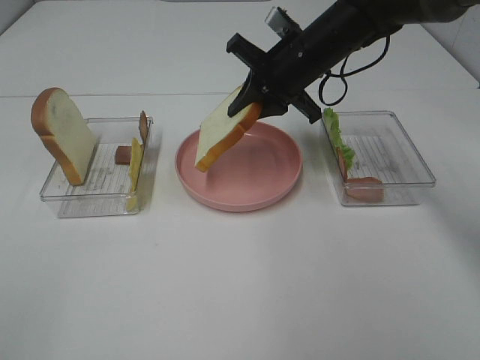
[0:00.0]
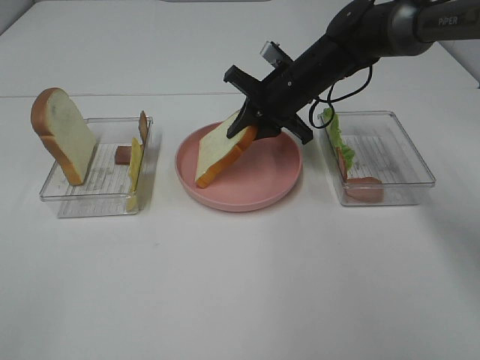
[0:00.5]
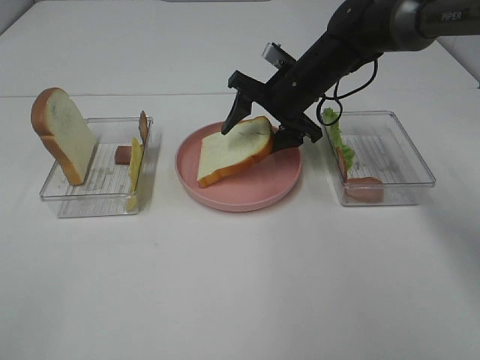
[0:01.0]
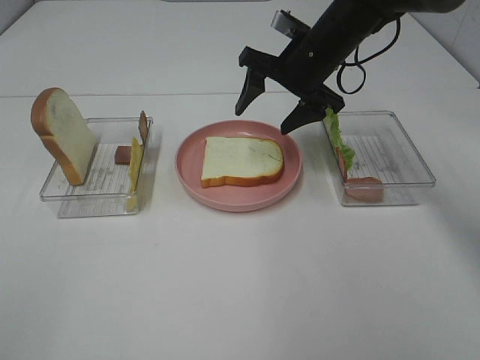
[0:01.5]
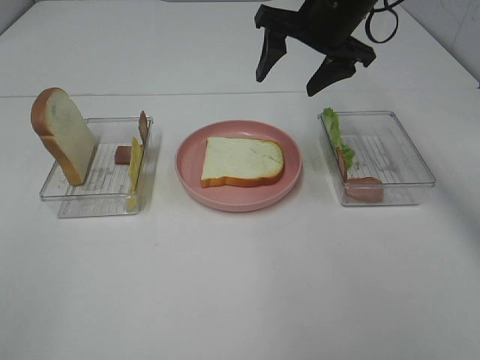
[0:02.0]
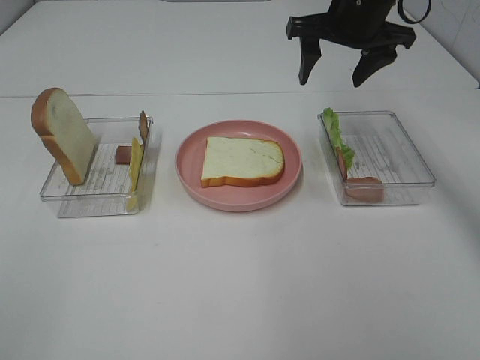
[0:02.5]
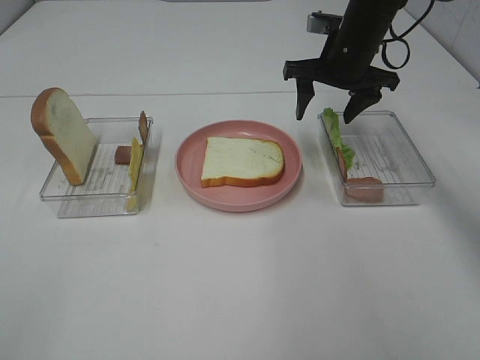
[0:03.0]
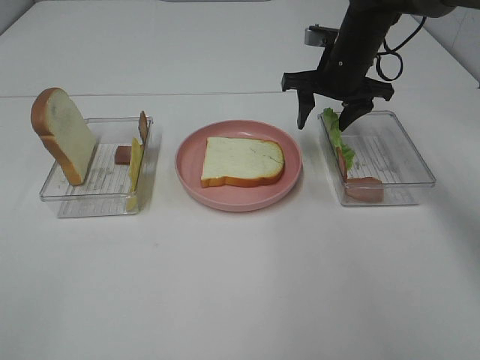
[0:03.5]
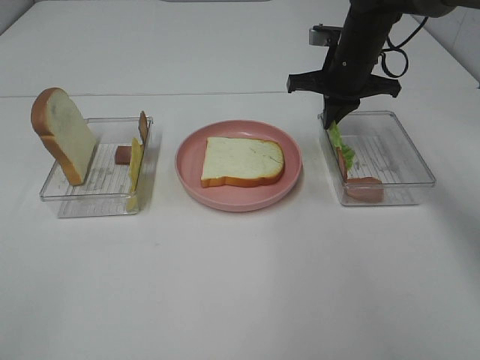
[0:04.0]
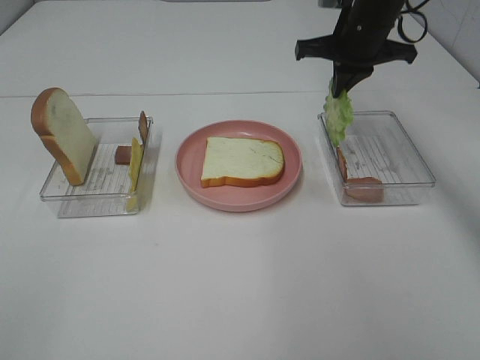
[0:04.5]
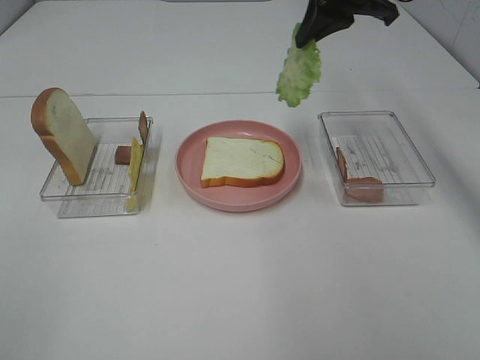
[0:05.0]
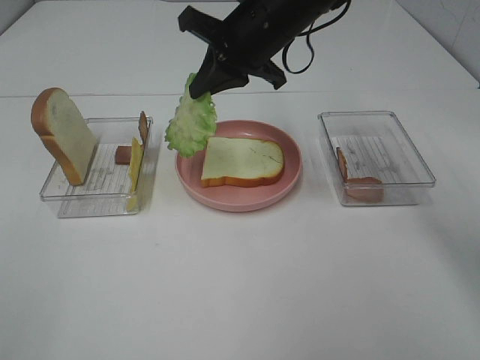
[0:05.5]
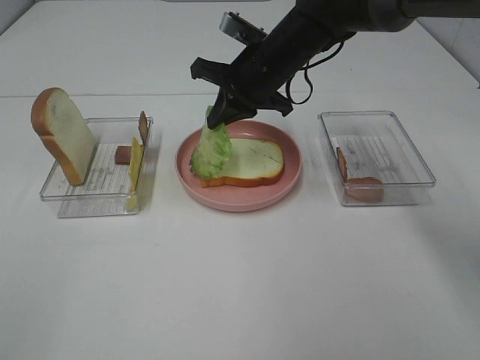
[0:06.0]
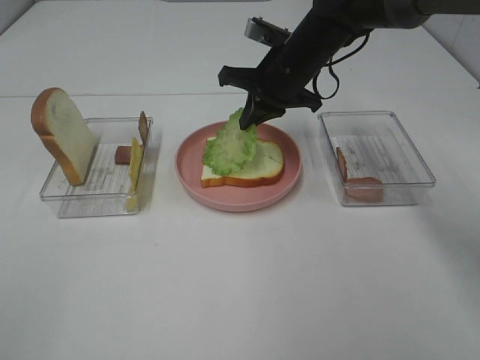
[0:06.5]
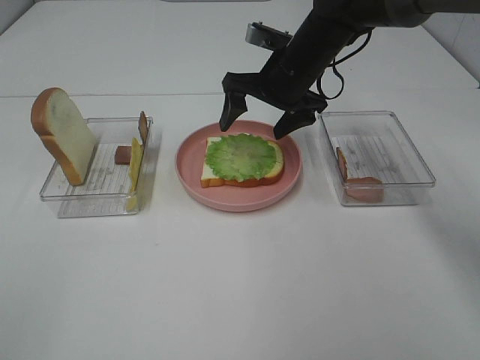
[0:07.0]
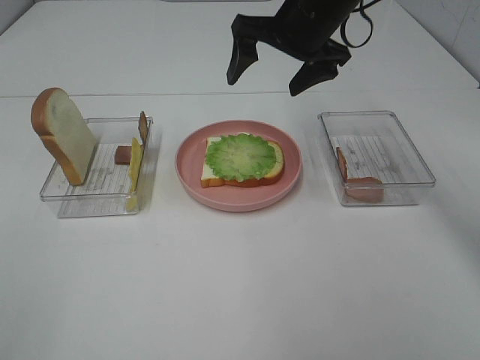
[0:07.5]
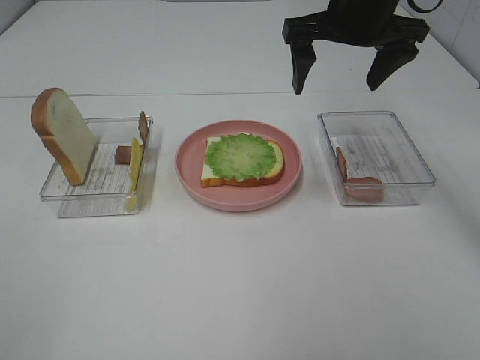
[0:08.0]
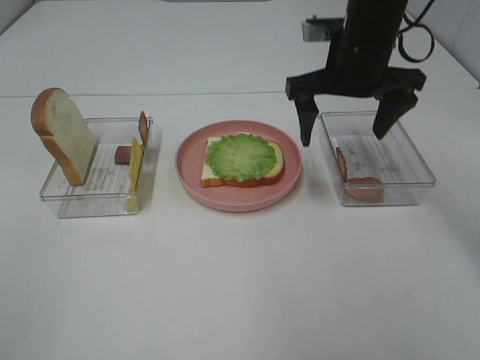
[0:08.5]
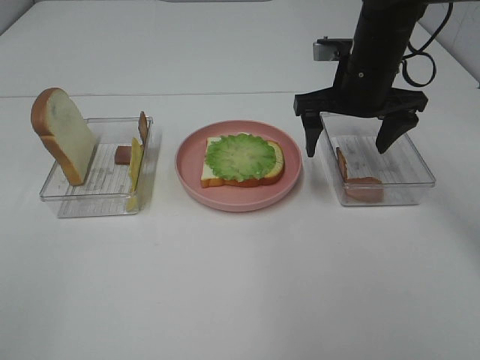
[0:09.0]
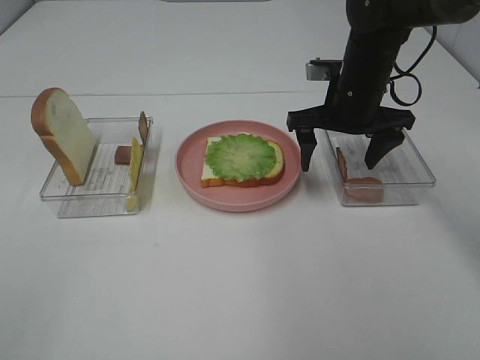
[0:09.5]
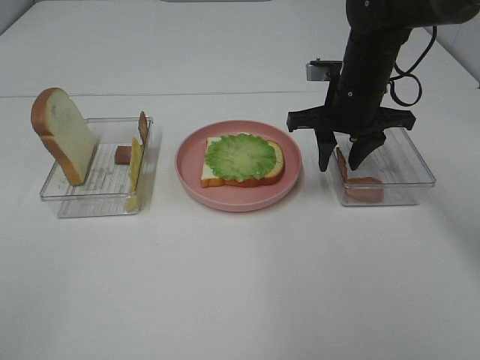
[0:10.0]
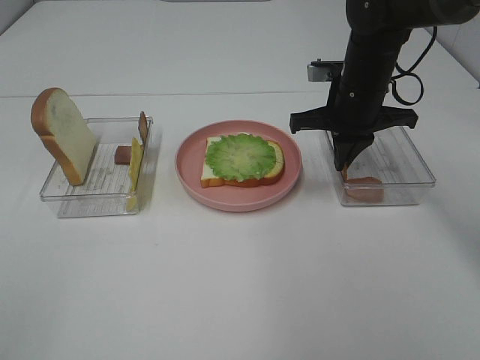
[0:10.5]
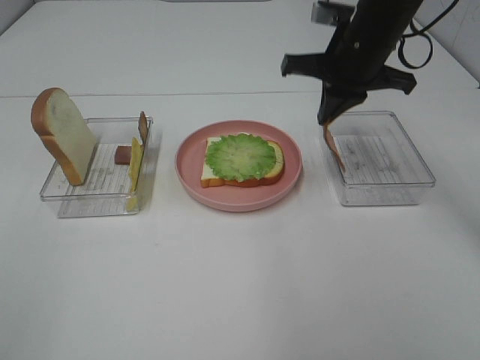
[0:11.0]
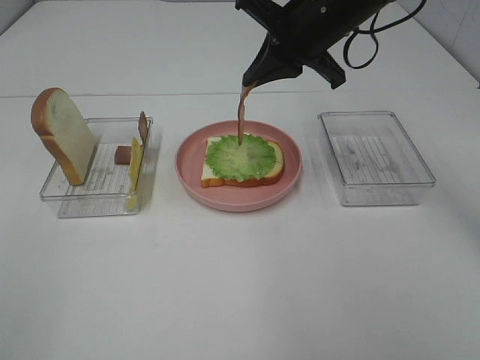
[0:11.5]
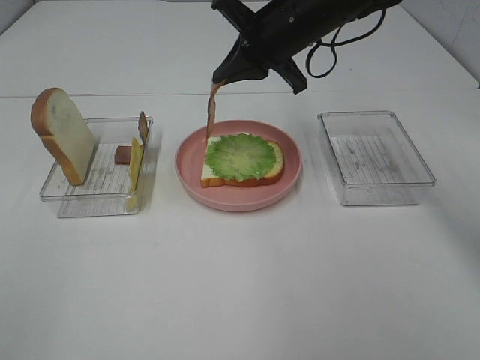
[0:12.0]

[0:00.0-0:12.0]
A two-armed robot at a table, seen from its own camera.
Task of the whole recording: Make sandwiches.
Step, 0:02.0 to 0:04.0: Right hand:grab the lettuce slice.
Step, 0:04.5 to 0:07.0: Right hand:place the lettuce slice on the bread slice.
Step, 0:07.5 to 0:10.0: Right hand:grab the bacon.
0:00.0 to 0:02.0: The right gripper shifts about 10 cm upward, and opens up.
0:02.0 to 0:04.0: The right gripper is displaced downward by approximately 10 cm, and closes its fingers.
0:04.0 to 0:06.0: The right gripper travels to the left by roughly 10 cm, and reaches approximately 15 cm upward, then returns.
0:06.0 to 0:08.0: The right gripper heads upward and to the right, covering some 15 cm, and opens its fingers.
0:08.0 to 0:10.0: The right gripper goes approximately 10 cm downward, and closes its fingers.
0:10.0 to 0:12.0: The right gripper shifts about 10 cm to the left and upward, and closes up.

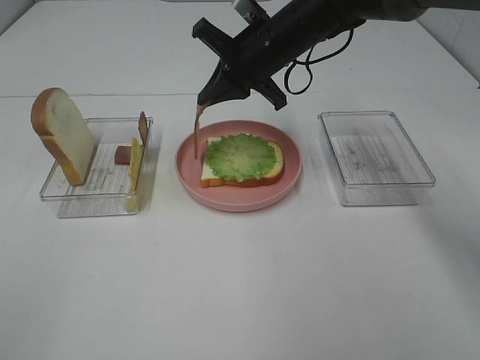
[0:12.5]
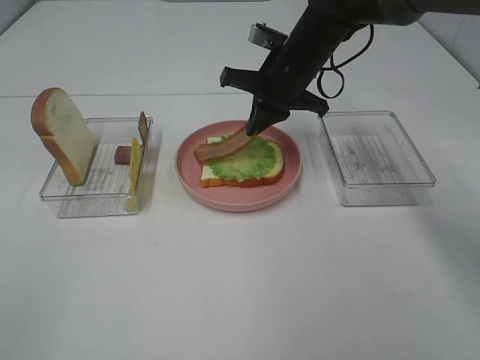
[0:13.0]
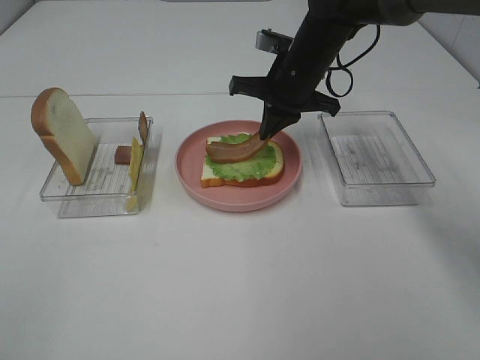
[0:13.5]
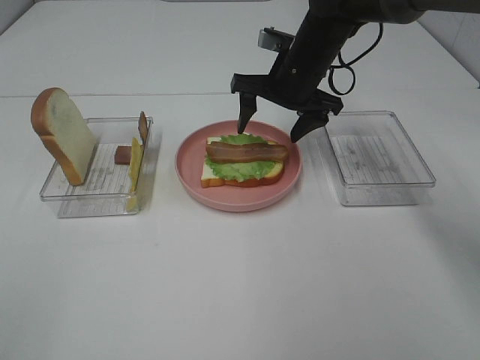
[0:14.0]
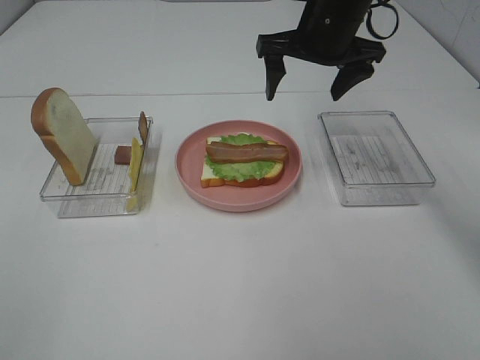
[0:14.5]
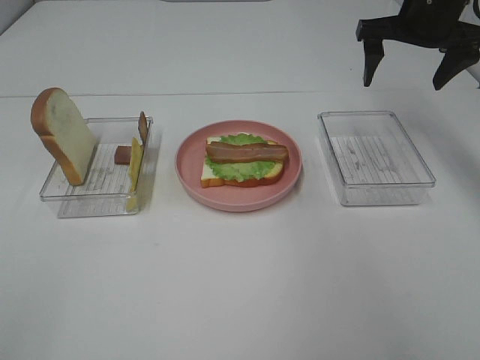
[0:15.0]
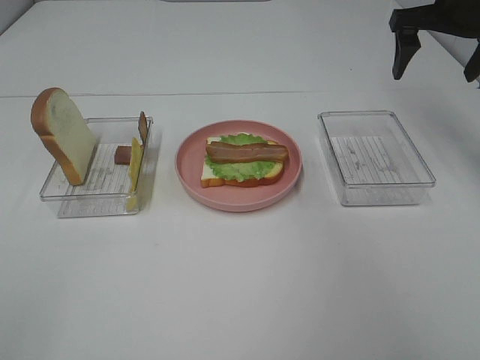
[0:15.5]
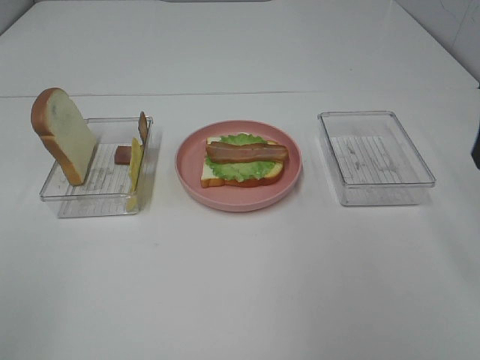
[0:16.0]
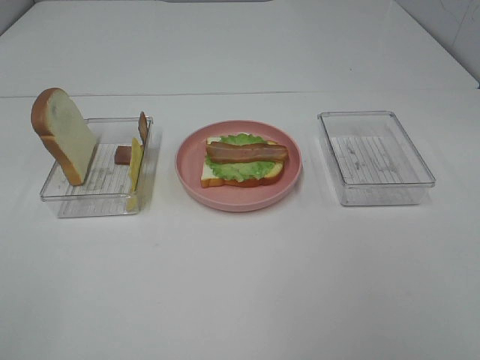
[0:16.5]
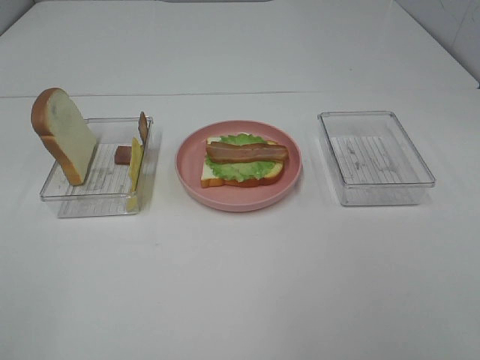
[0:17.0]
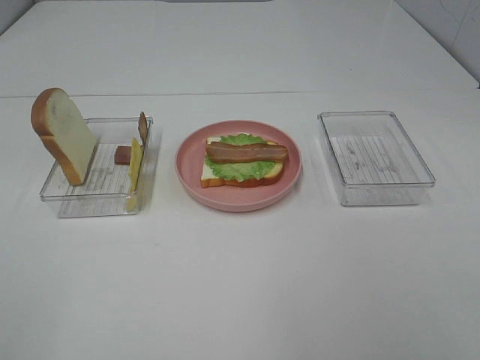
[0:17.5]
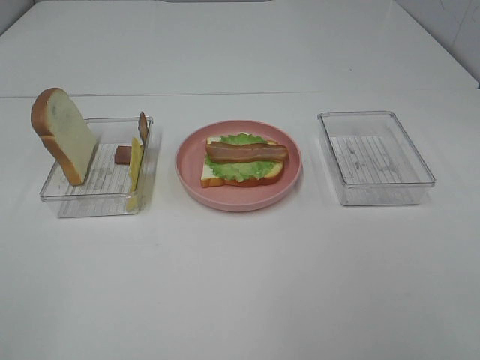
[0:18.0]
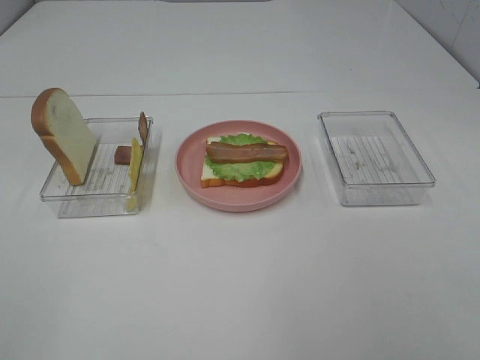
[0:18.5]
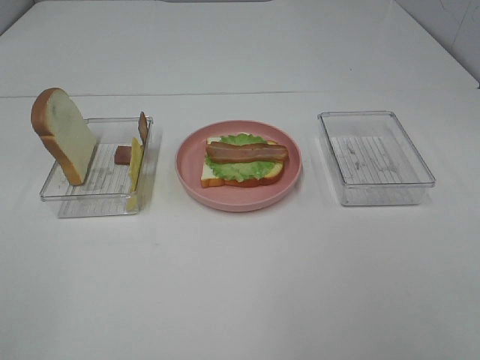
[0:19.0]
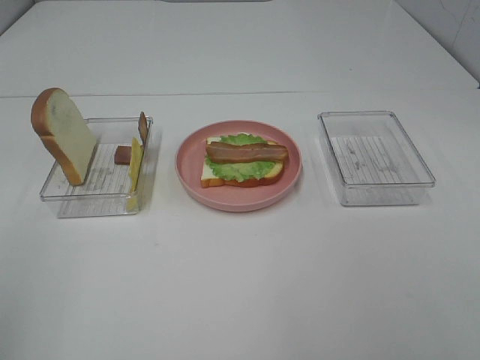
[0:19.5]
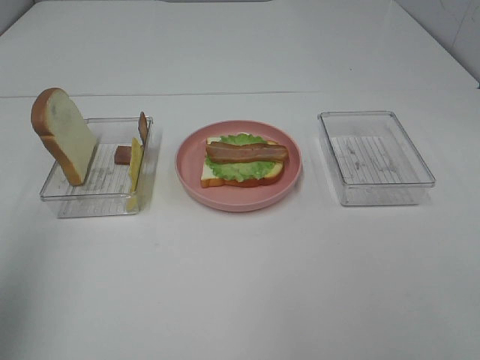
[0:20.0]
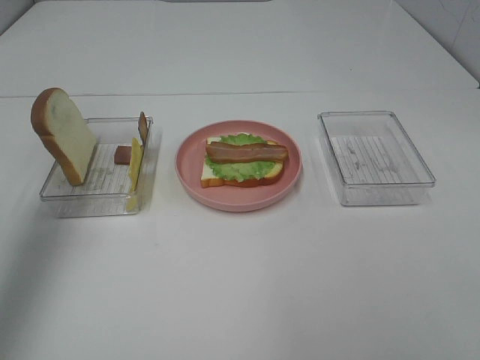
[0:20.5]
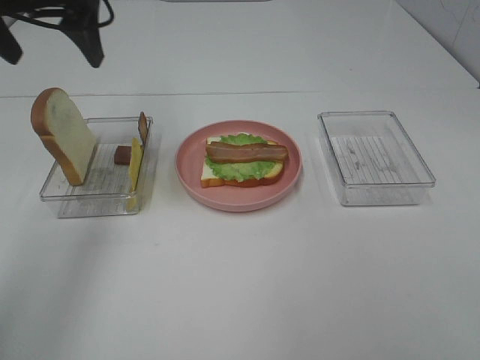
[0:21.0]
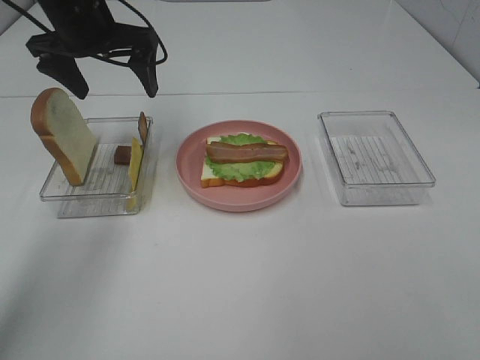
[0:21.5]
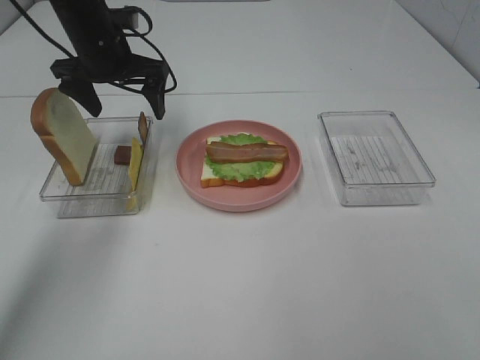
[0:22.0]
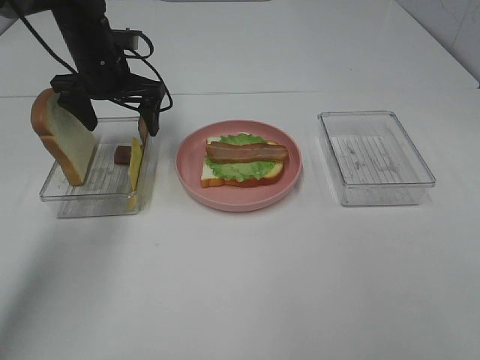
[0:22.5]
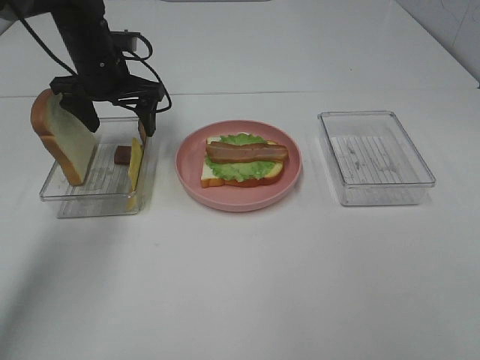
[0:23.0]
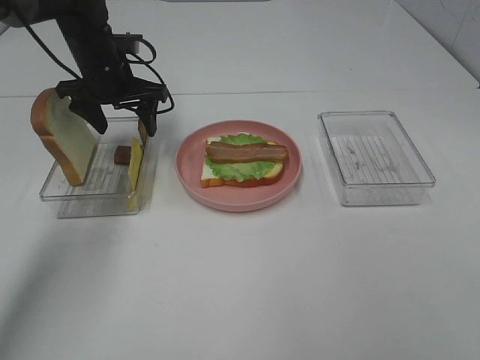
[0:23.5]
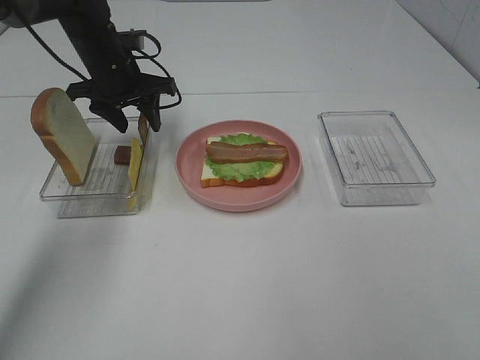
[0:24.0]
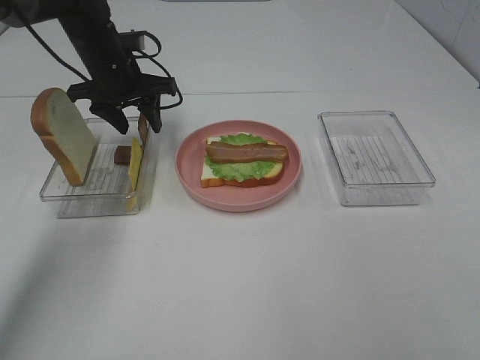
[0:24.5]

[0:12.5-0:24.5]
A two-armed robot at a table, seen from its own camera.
Task of the whole recording: Make sandwiches.
0:12.5 to 0:14.5: The right gripper shifts roughly 10 cm to the right and upward, and opens its fingers.
0:14.5 to 0:16.5: The right gripper travels backward and to the right by roughly 40 cm.
0:18.5 to 0:20.5: The left gripper is displaced forward by roughly 30 cm.
0:20.5 to 0:22.5: The left gripper goes approximately 30 cm downward, forward and to the right.
0:22.5 to 0:24.5: The left gripper closes its fingers.

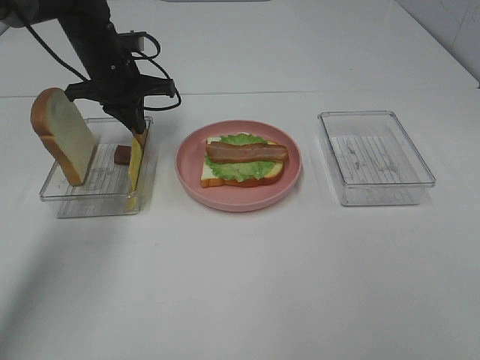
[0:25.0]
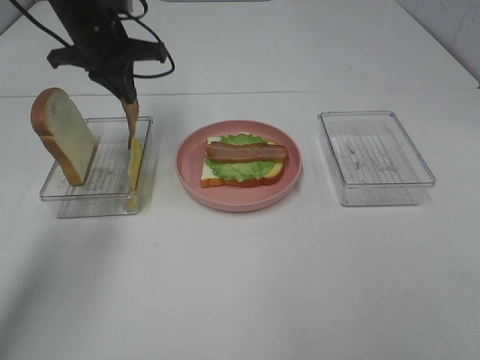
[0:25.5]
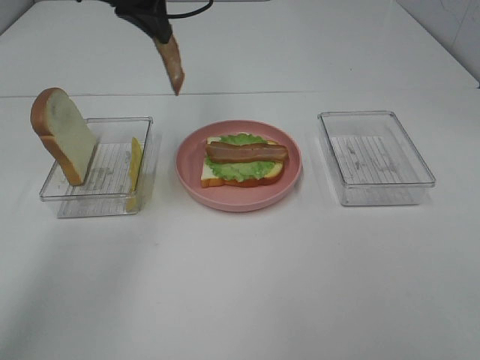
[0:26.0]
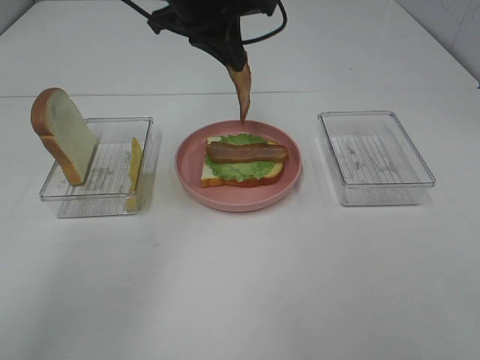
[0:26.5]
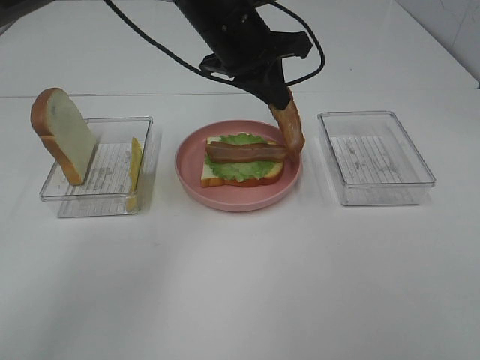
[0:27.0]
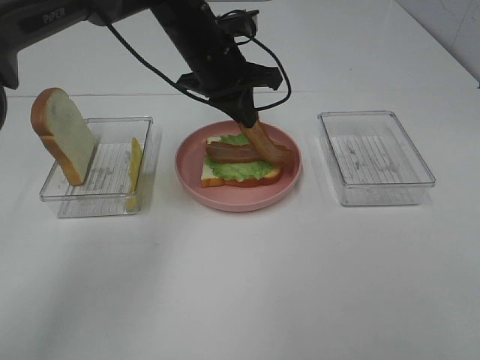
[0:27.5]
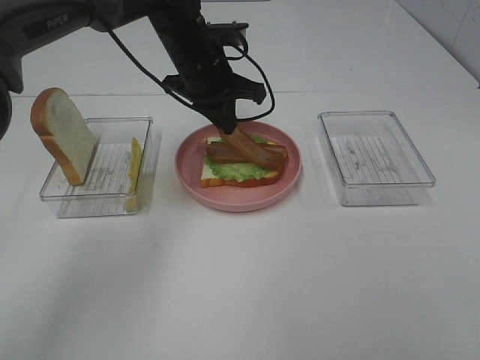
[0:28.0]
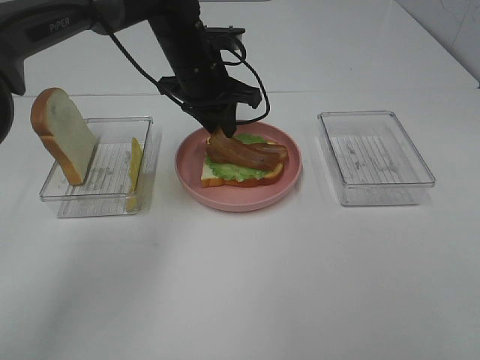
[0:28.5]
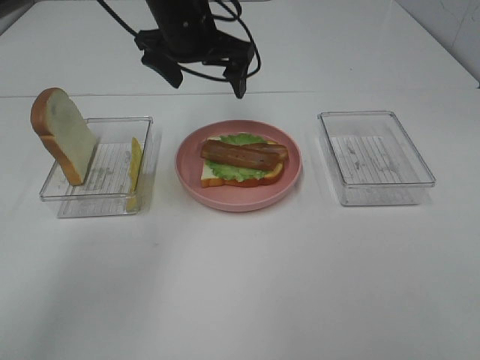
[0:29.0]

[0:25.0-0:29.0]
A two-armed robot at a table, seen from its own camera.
Task of the whole recording: Make sandwiches.
Step, 0:25.5 to 0:28.5: Left hand:place bacon on bacon.
0:25.0 to 0:27.0: The left gripper is displaced to the right and upward by about 20 cm.
0:27.0 to 0:29.0: The left gripper travels to the left by some 5 cm, and opens up.
